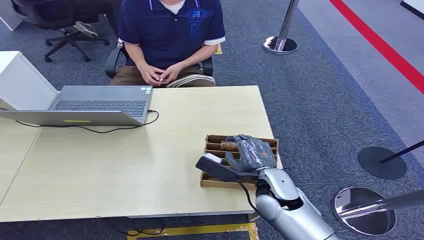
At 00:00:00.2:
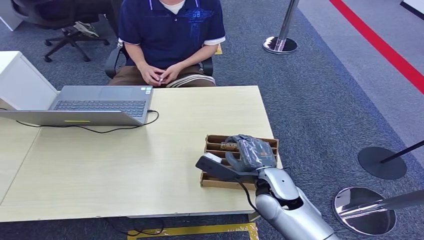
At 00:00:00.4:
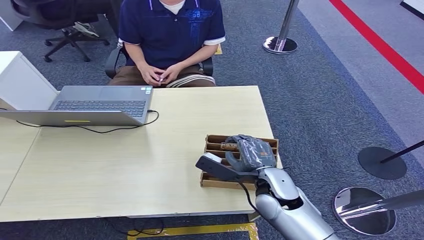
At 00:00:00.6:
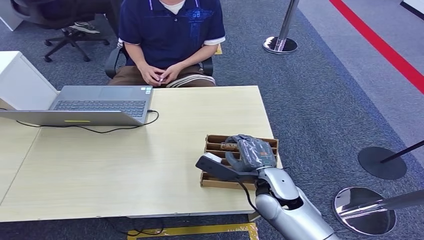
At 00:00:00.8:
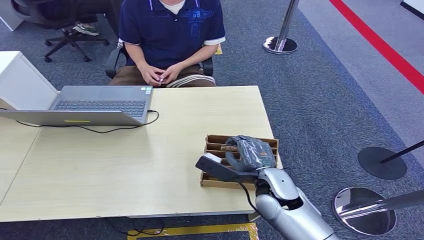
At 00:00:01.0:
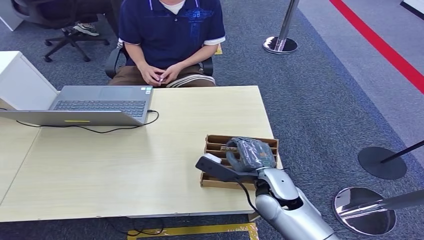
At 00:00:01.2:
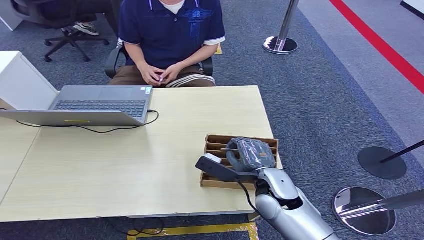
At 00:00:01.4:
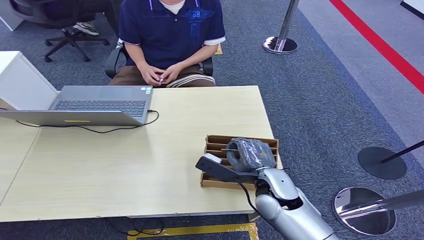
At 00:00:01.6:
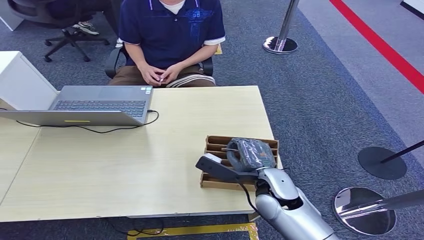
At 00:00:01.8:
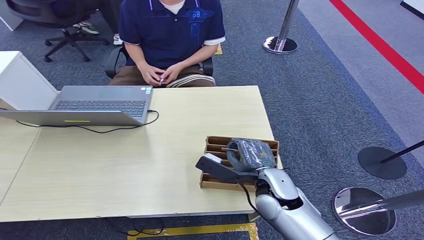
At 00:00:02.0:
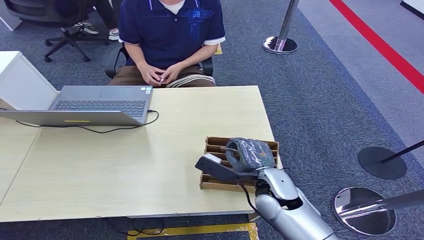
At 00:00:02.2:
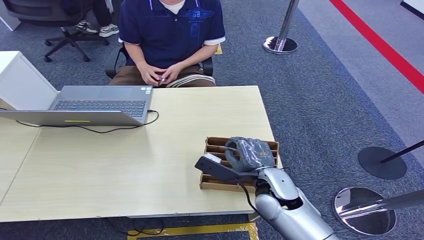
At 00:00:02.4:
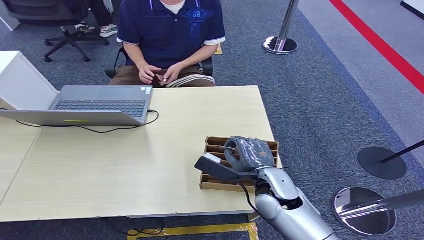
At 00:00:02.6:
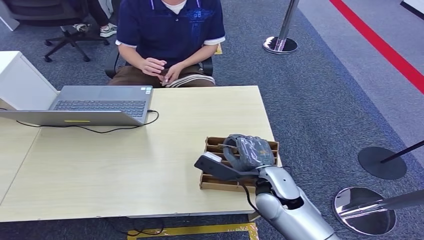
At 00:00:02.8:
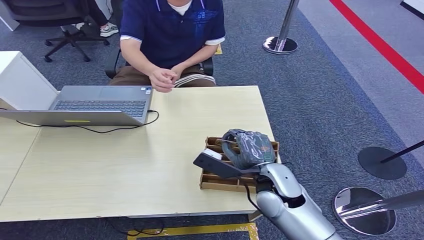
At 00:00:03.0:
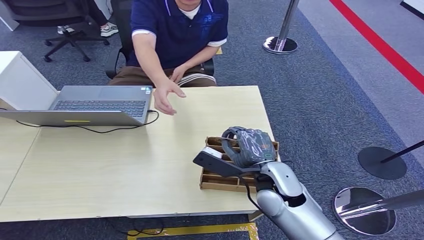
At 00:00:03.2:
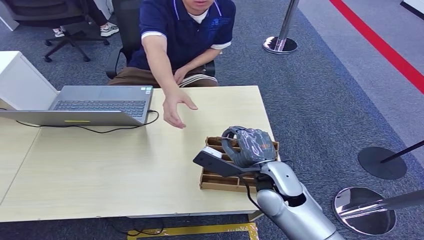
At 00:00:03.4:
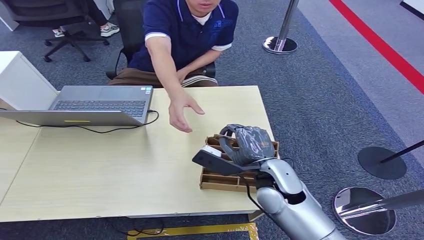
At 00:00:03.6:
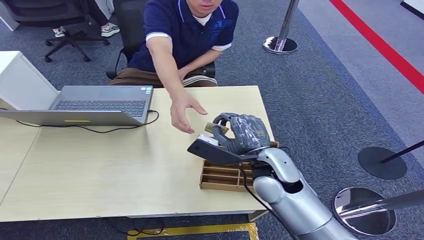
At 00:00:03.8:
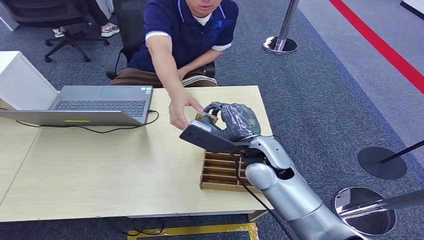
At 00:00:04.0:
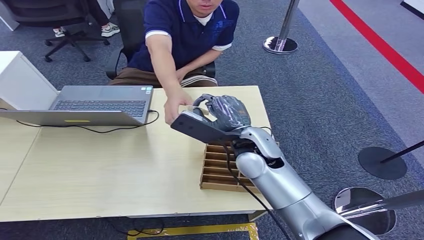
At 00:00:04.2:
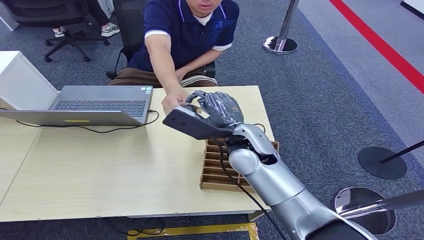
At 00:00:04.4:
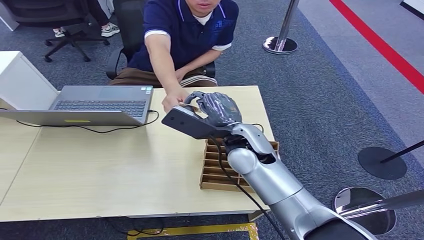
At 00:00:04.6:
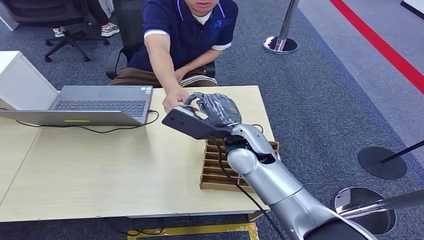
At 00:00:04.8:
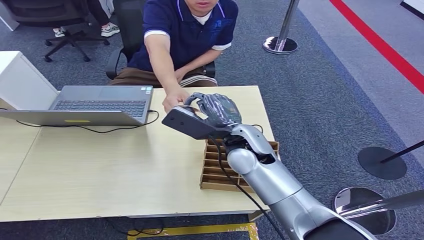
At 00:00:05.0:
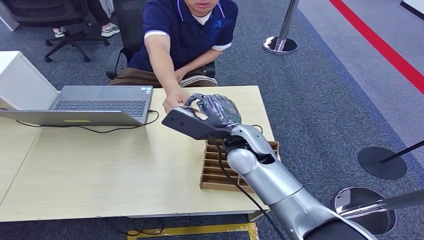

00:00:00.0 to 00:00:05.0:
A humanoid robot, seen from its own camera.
Step, 00:00:00.0 to 00:00:03.8: Pick up the room card from the card holder.
Step, 00:00:04.0 to 00:00:05.0: Hand the room card to the target.
00:00:01.6 to 00:00:03.4: The hands move only a little.
00:00:03.4 to 00:00:05.0: The right hand goes some 10 cm forward, upward and to the left.

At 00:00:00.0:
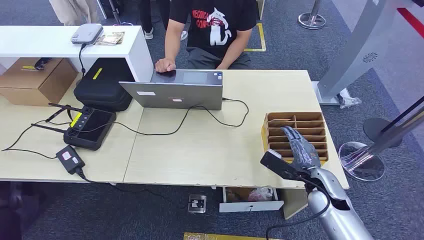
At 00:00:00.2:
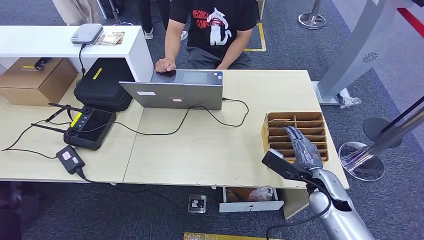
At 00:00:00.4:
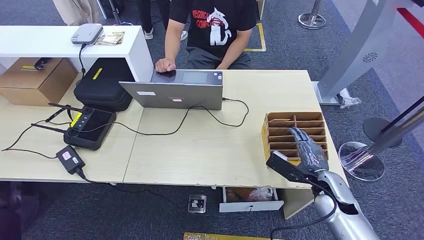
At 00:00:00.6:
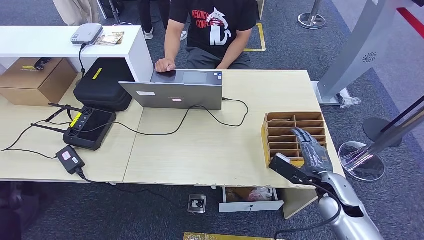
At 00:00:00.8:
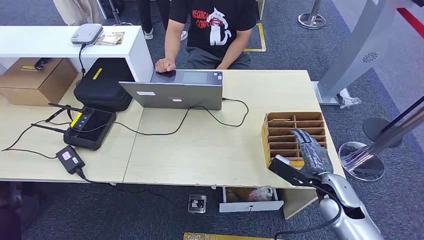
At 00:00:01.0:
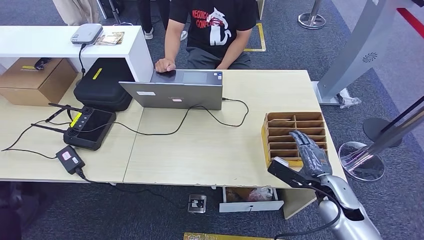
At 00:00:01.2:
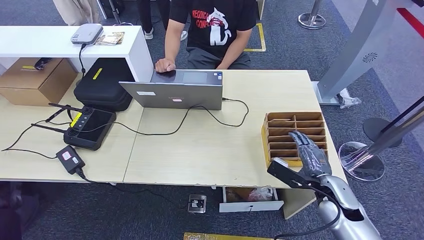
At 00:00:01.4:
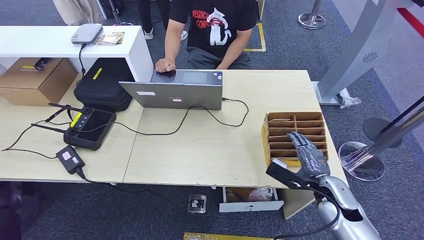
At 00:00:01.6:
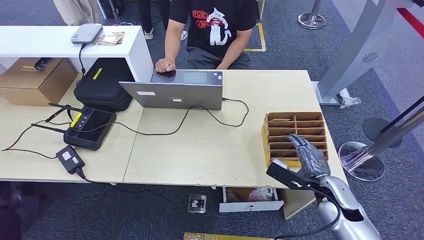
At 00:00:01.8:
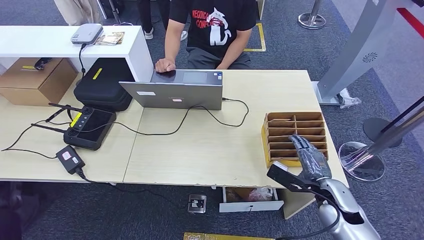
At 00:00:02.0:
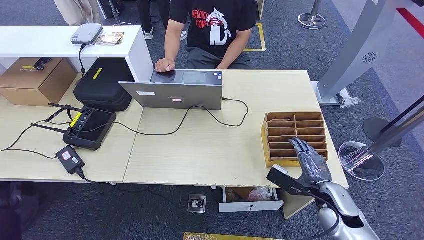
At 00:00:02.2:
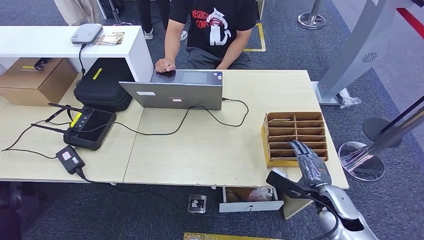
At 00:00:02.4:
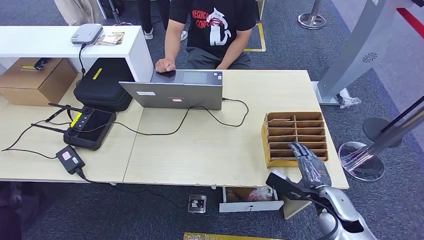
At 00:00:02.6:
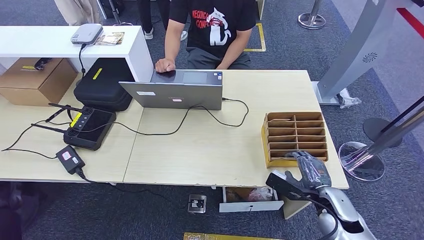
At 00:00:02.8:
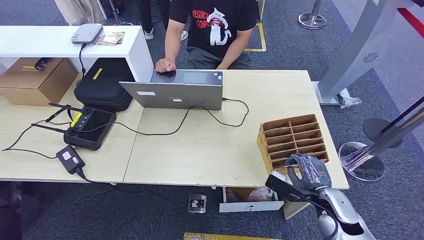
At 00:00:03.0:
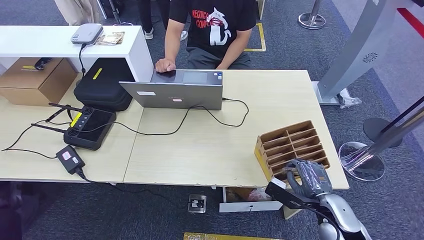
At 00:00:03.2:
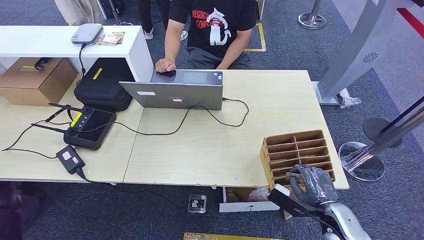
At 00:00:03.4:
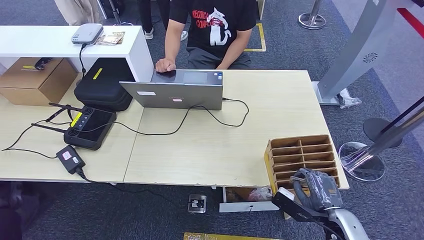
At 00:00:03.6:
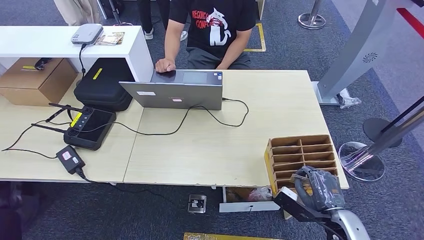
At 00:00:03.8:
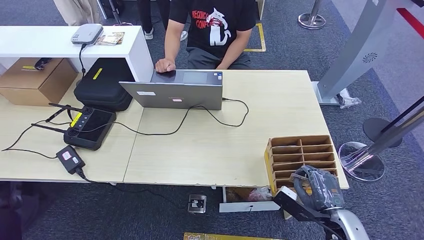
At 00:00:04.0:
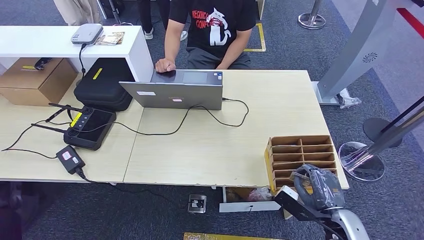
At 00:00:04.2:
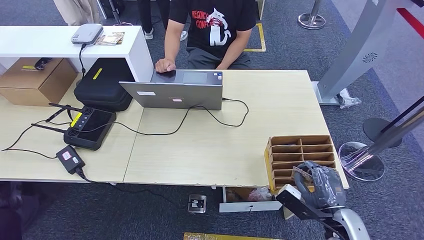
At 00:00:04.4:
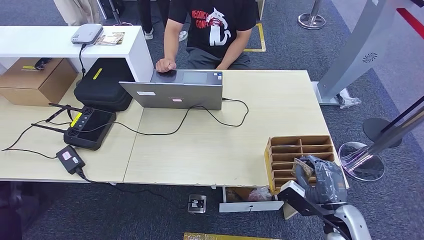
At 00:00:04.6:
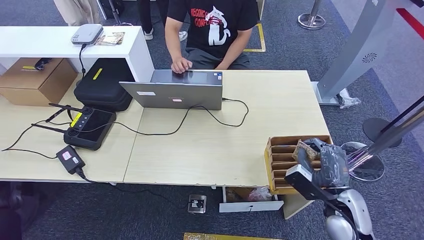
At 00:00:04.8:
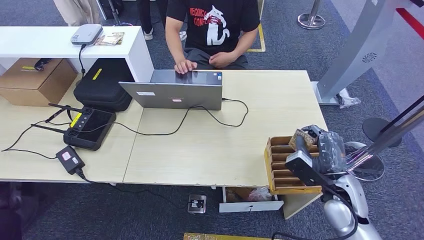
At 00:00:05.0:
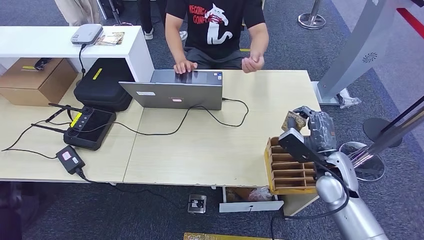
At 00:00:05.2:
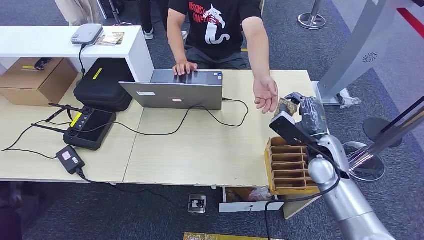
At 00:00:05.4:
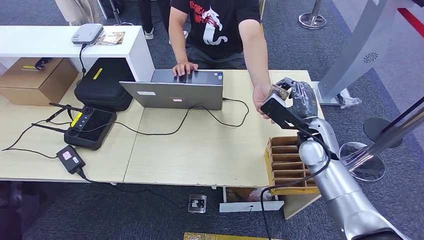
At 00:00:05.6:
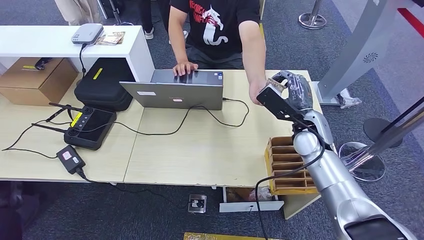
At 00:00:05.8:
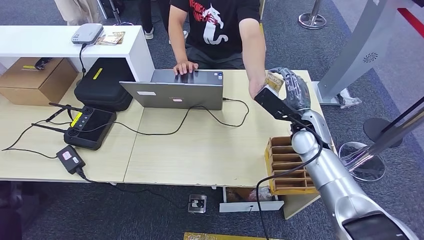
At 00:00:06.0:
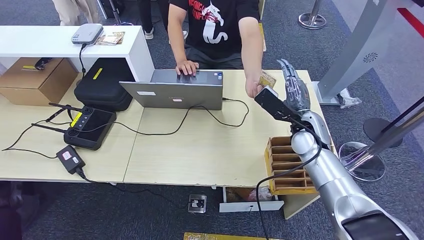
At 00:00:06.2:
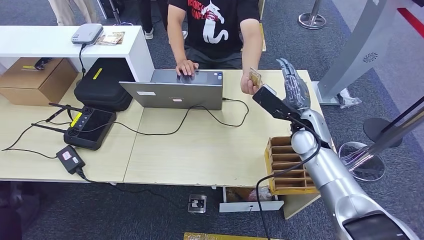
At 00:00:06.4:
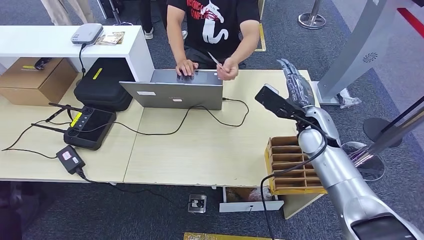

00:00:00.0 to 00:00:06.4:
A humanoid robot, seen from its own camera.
Step, 00:00:00.0 to 00:00:04.8: Pick up the room card from the card holder.
Step, 00:00:05.0 to 00:00:06.4: Hand the room card to the target.
00:00:01.6 to 00:00:03.2: The right hand goes roughly 5 cm backward.
00:00:03.2 to 00:00:04.8: The right hand is displaced forward and upward by some 10 cm.
00:00:04.8 to 00:00:06.4: The right hand shifts some 15 cm forward and upward.
